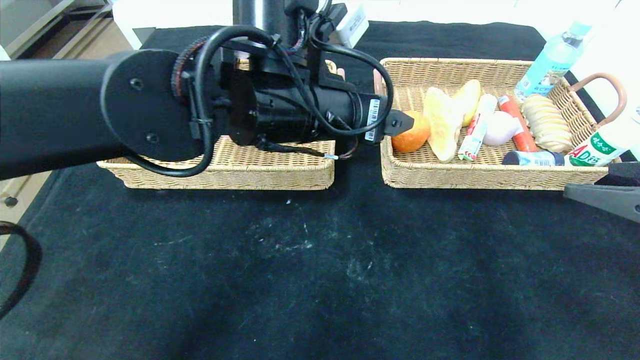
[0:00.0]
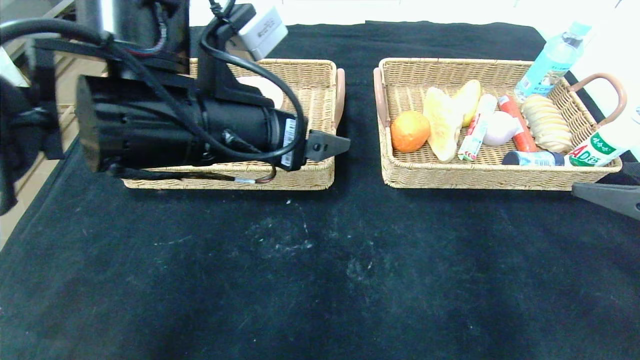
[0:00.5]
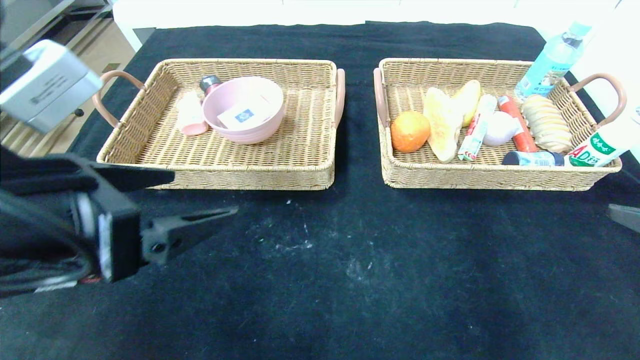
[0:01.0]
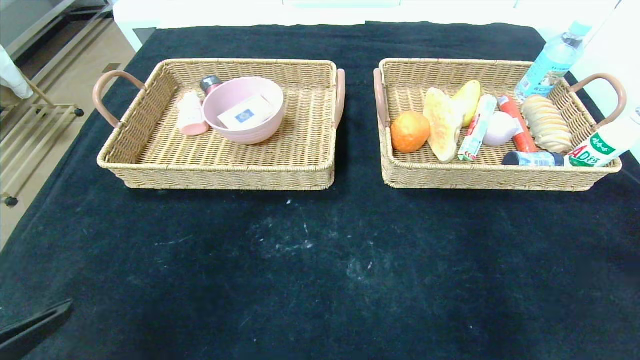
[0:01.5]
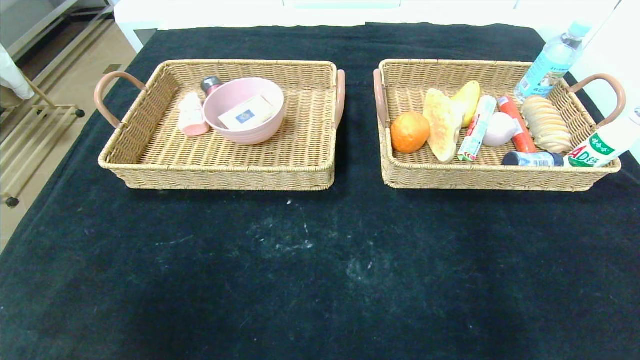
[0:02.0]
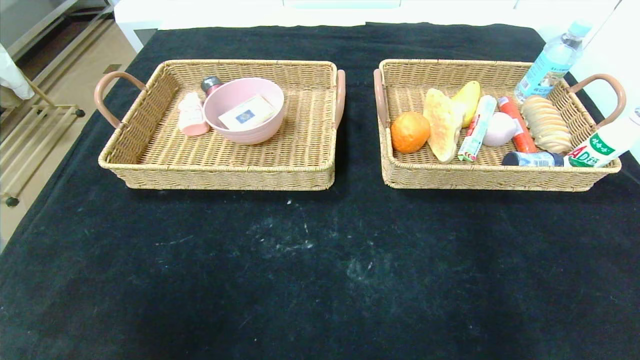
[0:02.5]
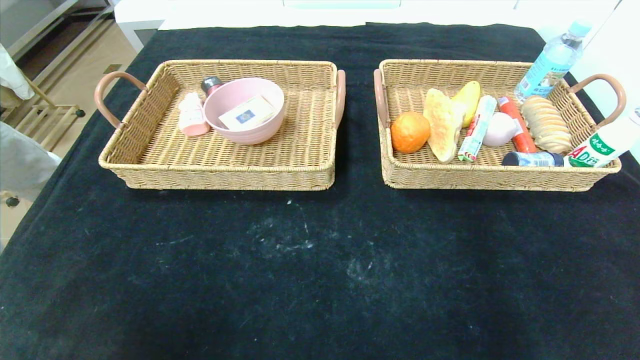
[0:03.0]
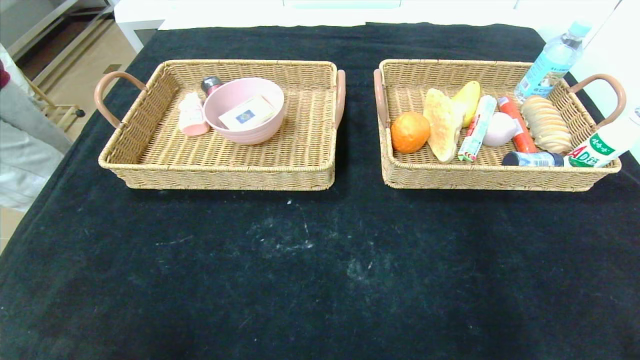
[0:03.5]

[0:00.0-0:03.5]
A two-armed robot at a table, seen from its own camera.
0:00.0 to 0:02.0: The right gripper goes roughly 25 cm backward. Meanwhile the left gripper heads backward and to the left, covering some 40 cm.
0:02.0 to 0:03.5: The left gripper shifts roughly 15 cm downward.
